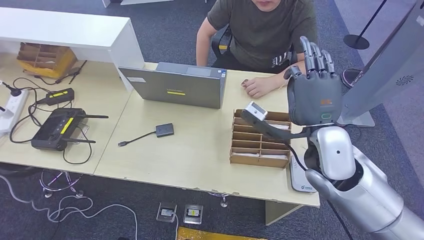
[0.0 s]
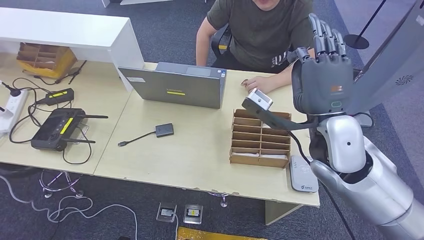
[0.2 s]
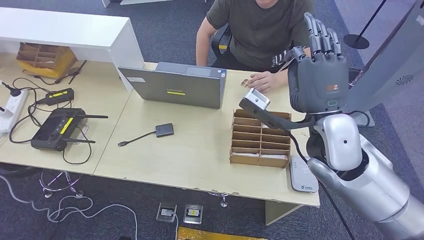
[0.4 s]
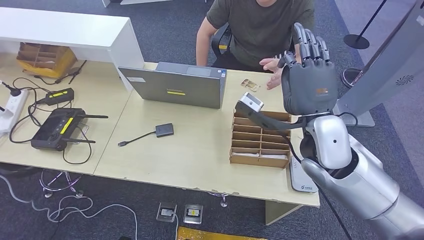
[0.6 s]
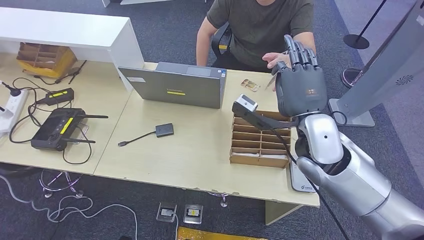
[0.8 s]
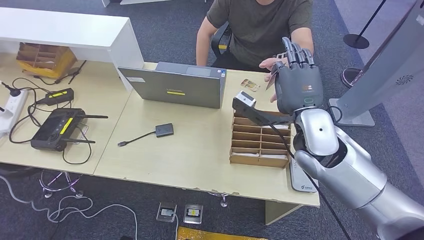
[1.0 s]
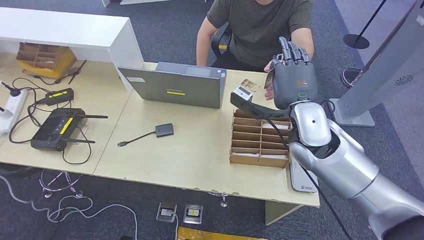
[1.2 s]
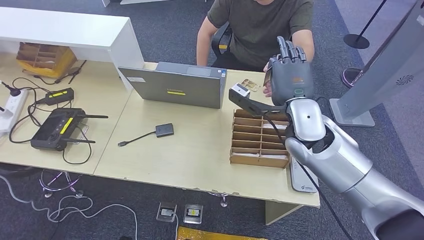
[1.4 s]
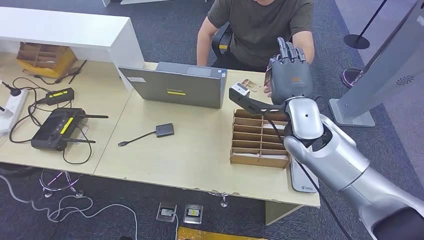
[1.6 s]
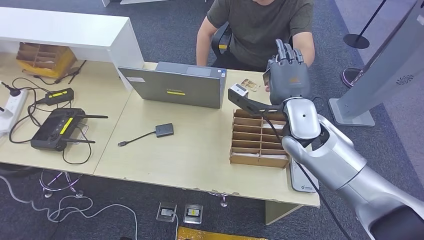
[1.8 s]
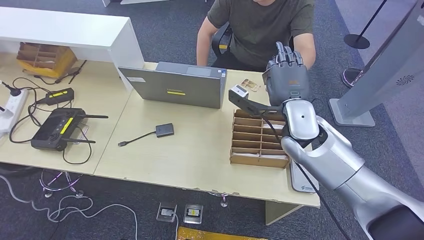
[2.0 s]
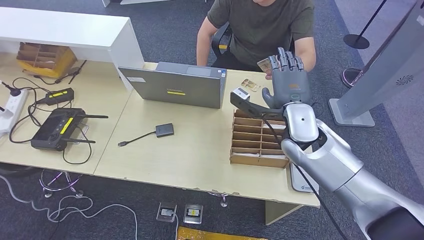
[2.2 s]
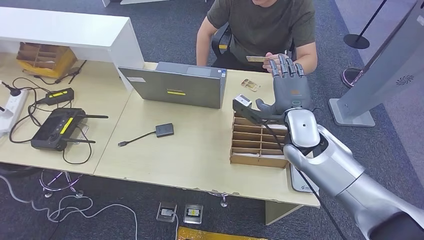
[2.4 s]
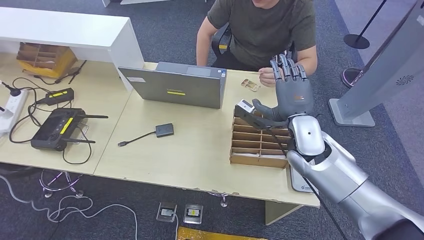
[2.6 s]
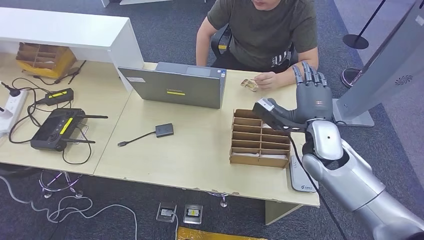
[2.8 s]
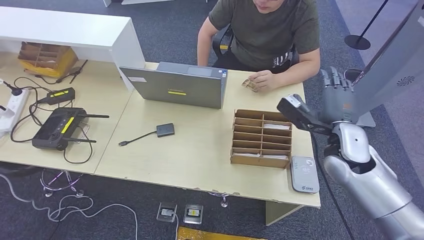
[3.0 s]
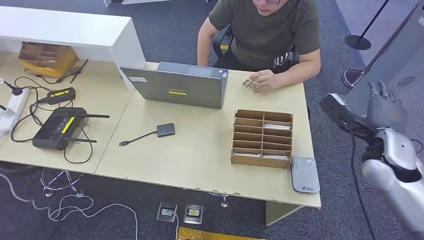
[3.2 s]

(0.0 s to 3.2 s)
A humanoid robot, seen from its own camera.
Step, 0.4 s - 3.0 s: Hand the room key to the person.
0.0 s - 1.6 s: The right hand moves forward, about 5 cm.
1.6 s - 3.2 s: The right hand is displaced to the right by approximately 20 cm.
